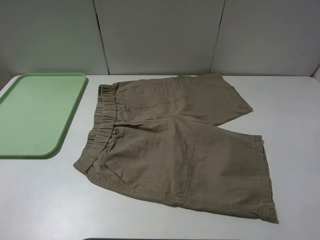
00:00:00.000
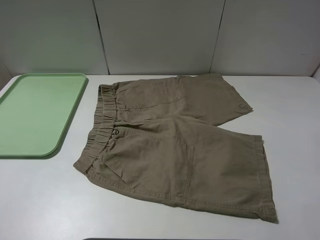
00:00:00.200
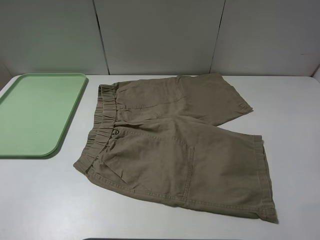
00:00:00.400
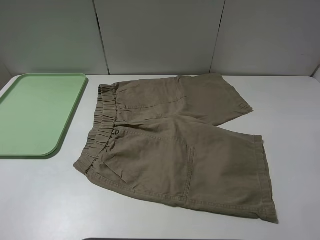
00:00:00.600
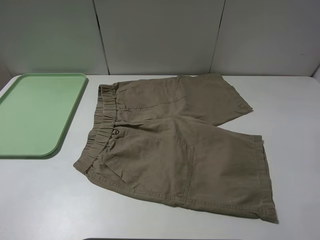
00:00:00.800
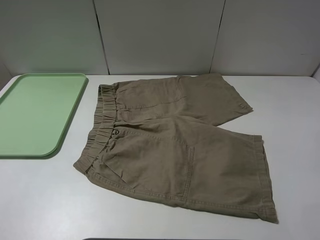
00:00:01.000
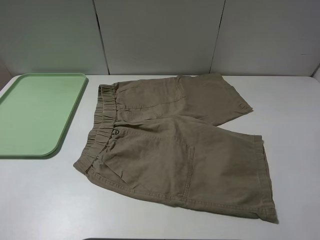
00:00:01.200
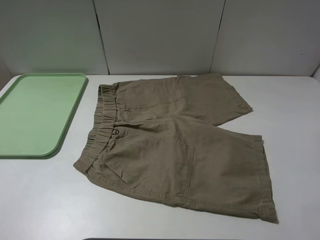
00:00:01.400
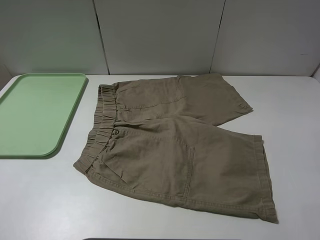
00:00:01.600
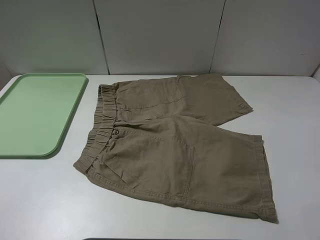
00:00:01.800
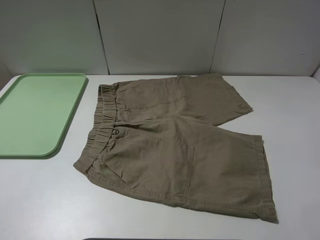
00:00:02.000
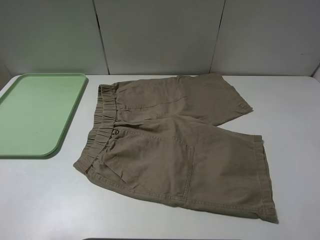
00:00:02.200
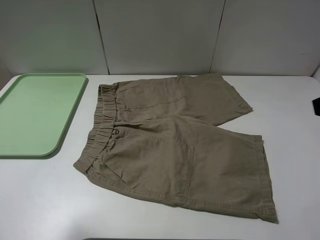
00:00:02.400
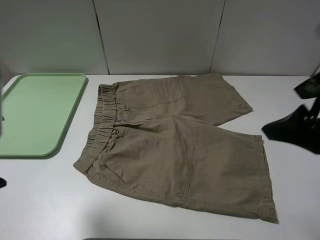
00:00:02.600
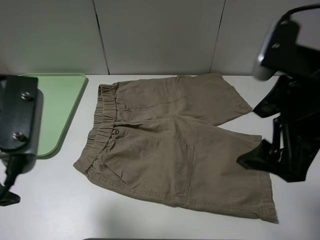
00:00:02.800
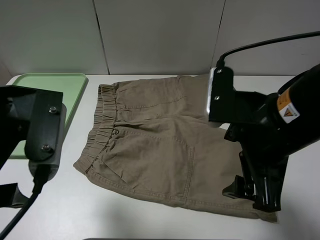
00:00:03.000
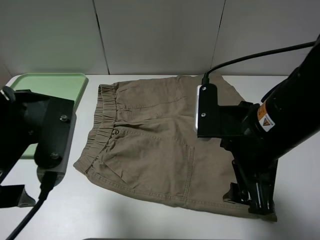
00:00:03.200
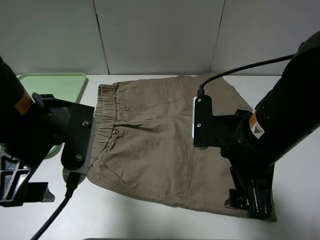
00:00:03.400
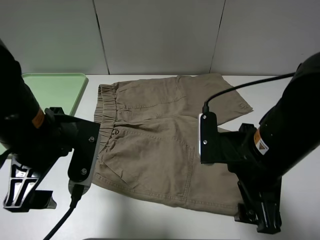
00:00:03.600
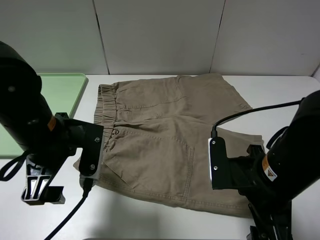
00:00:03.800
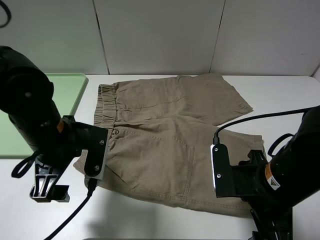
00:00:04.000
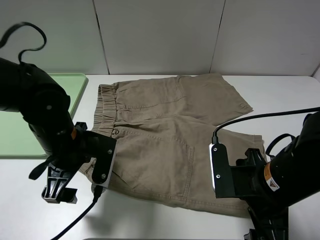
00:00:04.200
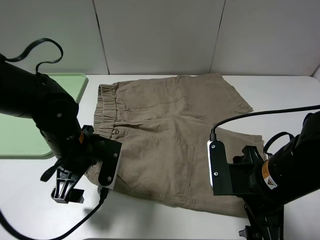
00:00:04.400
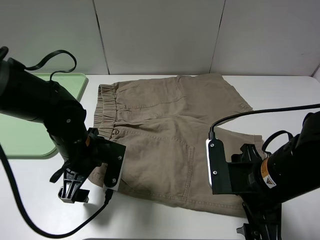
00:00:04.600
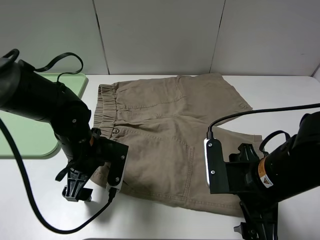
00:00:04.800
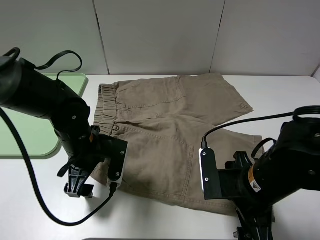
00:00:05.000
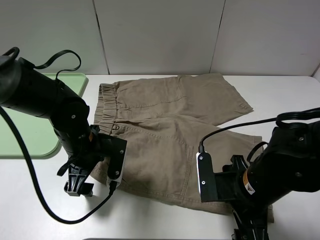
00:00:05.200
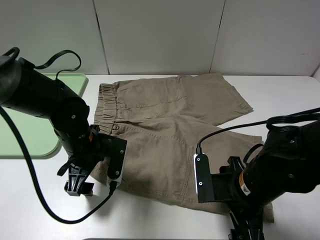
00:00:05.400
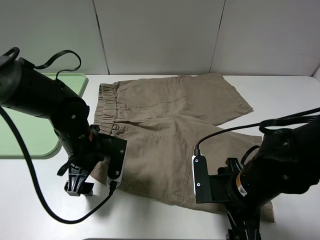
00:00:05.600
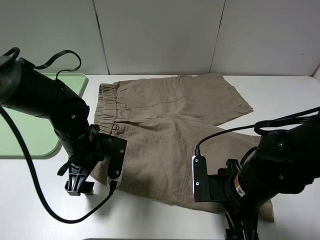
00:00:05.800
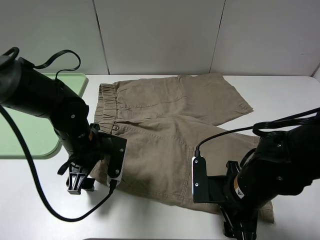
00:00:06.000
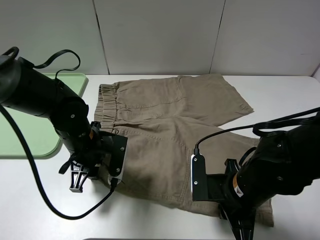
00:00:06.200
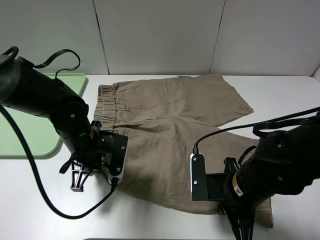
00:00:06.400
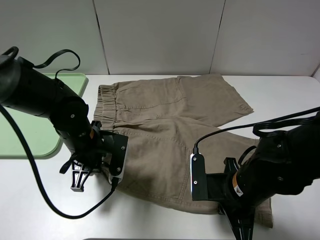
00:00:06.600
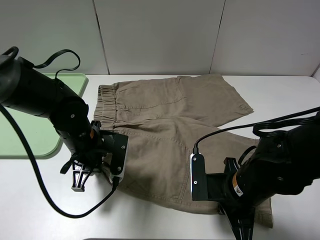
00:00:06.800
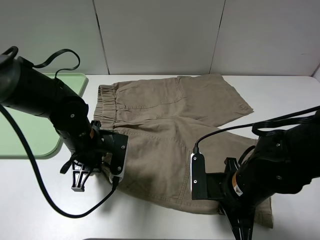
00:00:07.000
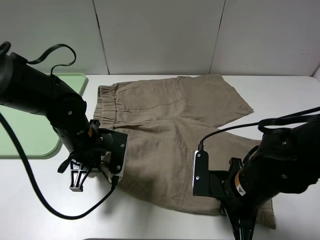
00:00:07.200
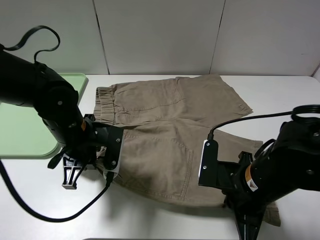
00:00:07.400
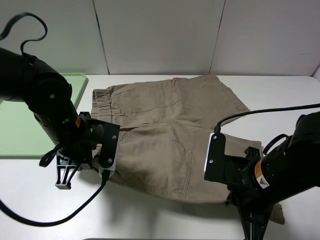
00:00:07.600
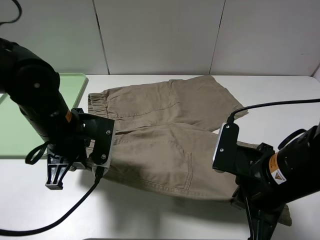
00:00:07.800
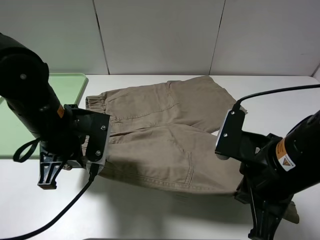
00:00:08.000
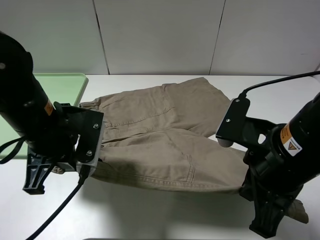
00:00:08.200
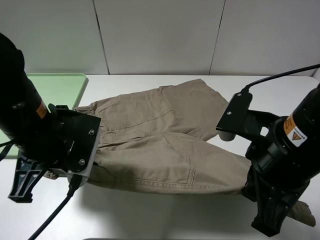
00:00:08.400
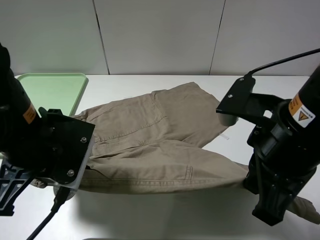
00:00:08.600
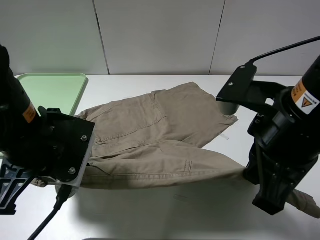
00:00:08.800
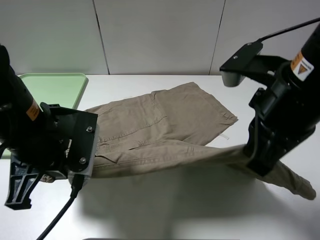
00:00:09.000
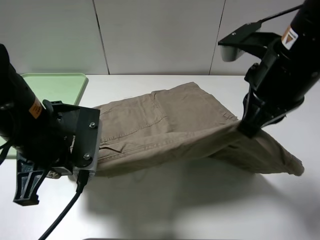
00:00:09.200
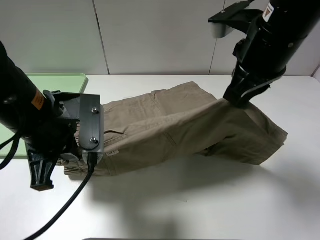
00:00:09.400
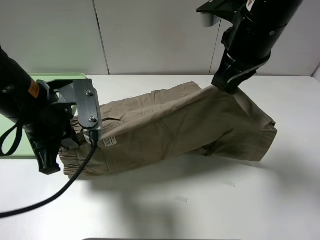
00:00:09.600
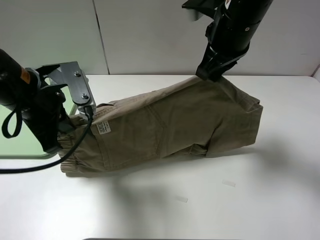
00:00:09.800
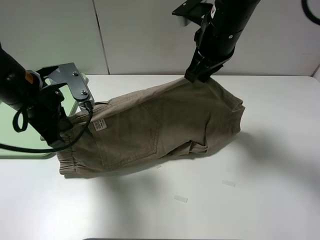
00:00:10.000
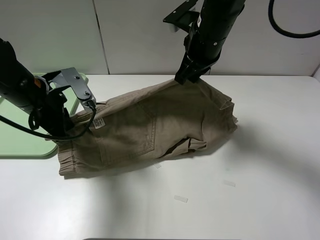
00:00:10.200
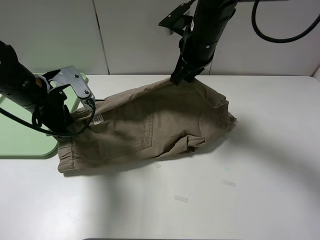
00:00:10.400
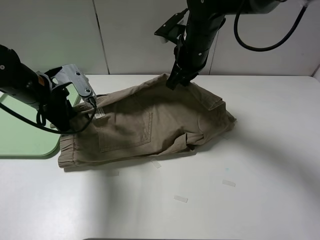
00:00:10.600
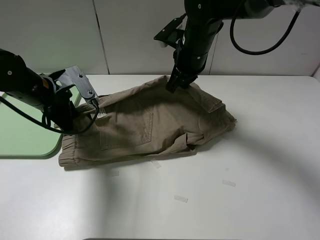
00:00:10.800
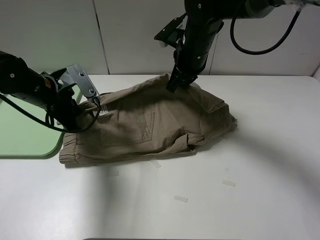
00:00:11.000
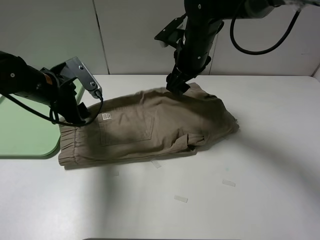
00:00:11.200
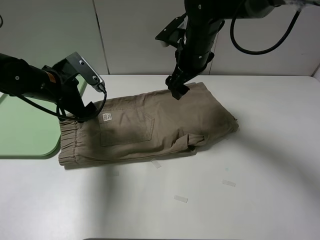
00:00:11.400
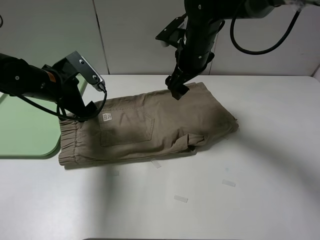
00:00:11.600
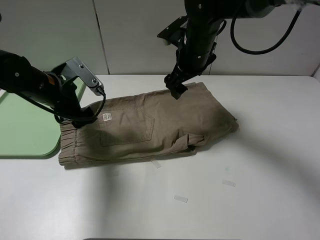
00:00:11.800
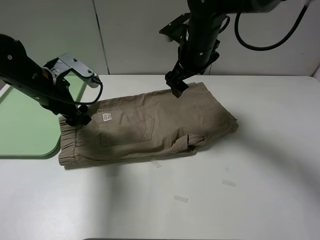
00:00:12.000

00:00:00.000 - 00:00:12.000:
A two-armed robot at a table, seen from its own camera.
Task of the whole recording: fold the khaki jeans in half with two grippers, then fold them in half again, and use the left claw to place the folded fold khaki jeans on the tray.
Step, 00:00:00.000 - 00:00:06.400: Grasp the khaki trousers with the left gripper.
Step, 00:00:06.600 - 00:00:11.200: Fold the khaki trousers upwards with the left gripper.
00:00:00.000 - 00:00:01.600: Neither gripper changes place.
00:00:01.600 - 00:00:03.000: The right gripper moves to the left and forward, roughly 20 cm, while the left gripper shifts about 20 cm forward and to the right.
00:00:03.000 - 00:00:04.400: The left gripper is displaced downward and forward by about 15 cm, while the right gripper shifts about 10 cm downward.
00:00:04.400 - 00:00:06.000: The right gripper travels downward by approximately 5 cm, and closes.
00:00:06.000 - 00:00:07.600: Both grippers travel together upward, roughly 5 cm. The left gripper closes; the right gripper closes its fingers.
00:00:07.600 - 00:00:09.000: The left gripper goes approximately 10 cm upward and backward, while the right gripper travels upward by approximately 15 cm.
00:00:09.000 - 00:00:10.400: The right gripper is displaced forward by about 20 cm; the left gripper travels forward and to the left by about 15 cm.
00:00:10.400 - 00:00:12.000: The right gripper opens up, while the left gripper opens up.

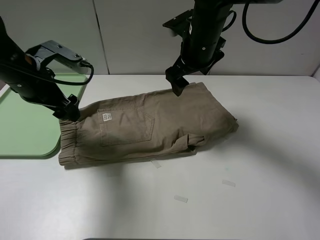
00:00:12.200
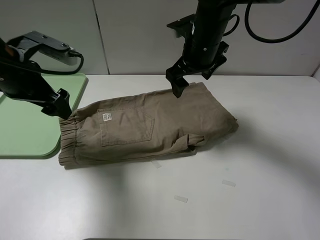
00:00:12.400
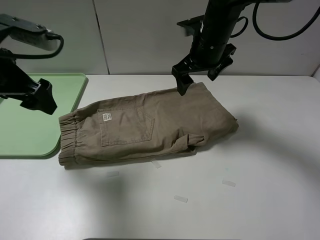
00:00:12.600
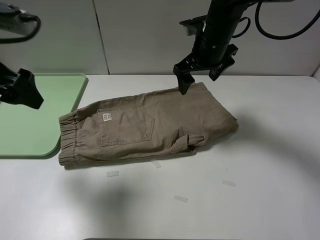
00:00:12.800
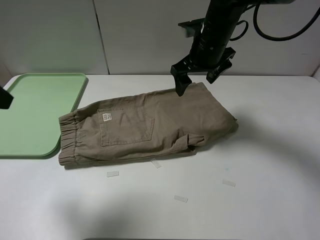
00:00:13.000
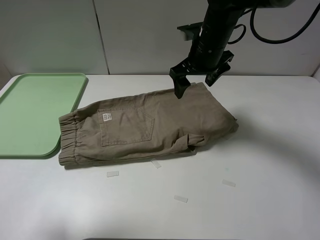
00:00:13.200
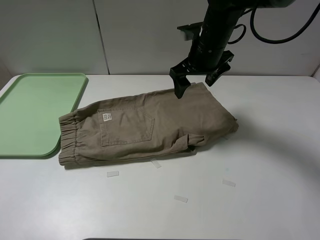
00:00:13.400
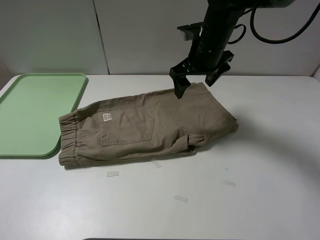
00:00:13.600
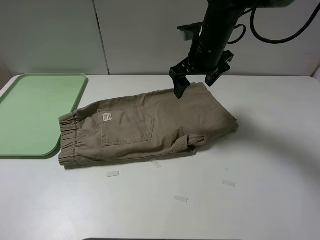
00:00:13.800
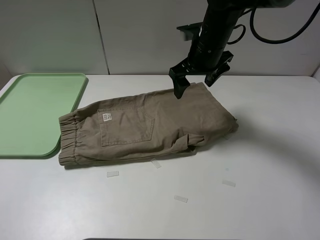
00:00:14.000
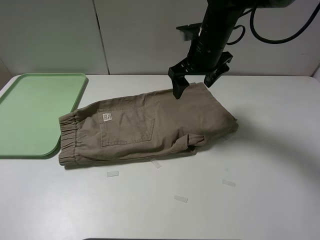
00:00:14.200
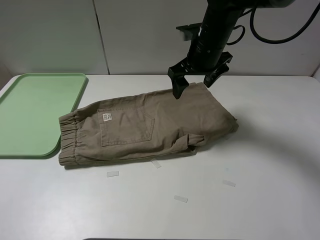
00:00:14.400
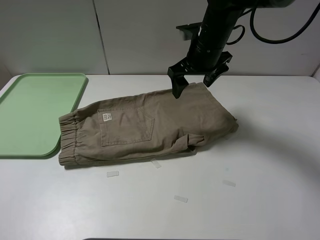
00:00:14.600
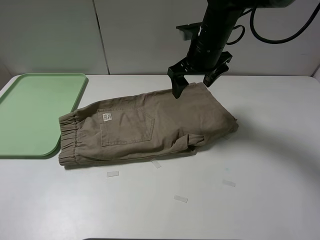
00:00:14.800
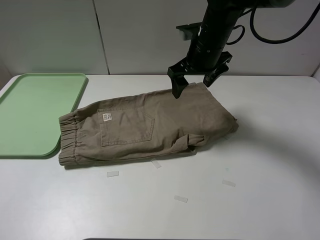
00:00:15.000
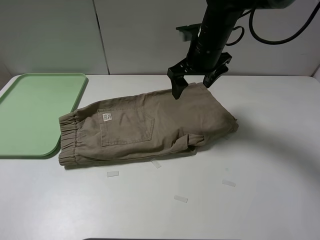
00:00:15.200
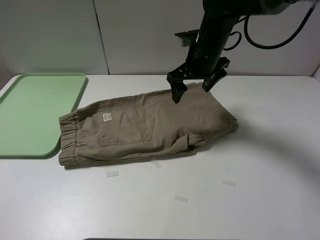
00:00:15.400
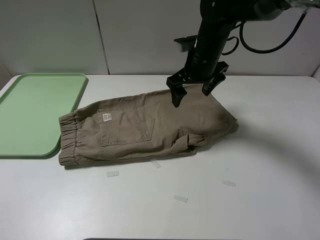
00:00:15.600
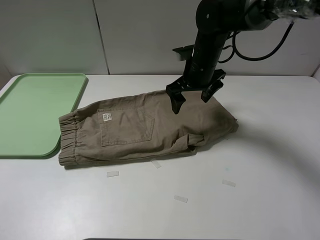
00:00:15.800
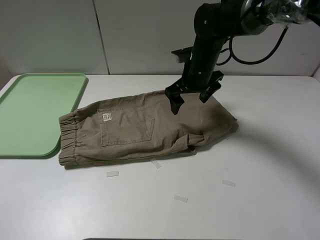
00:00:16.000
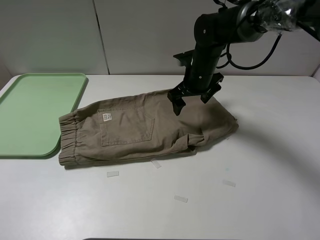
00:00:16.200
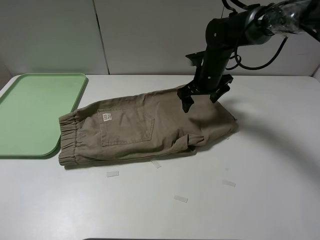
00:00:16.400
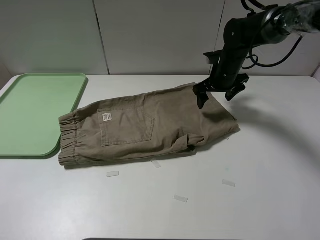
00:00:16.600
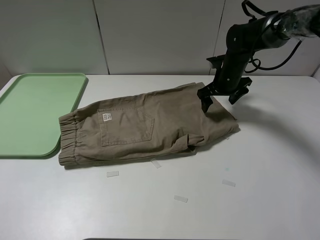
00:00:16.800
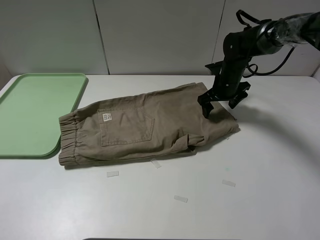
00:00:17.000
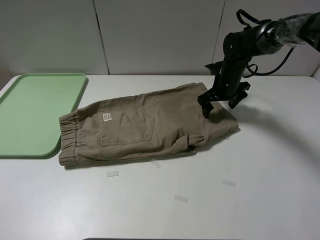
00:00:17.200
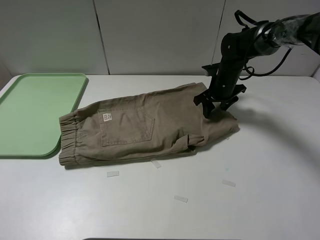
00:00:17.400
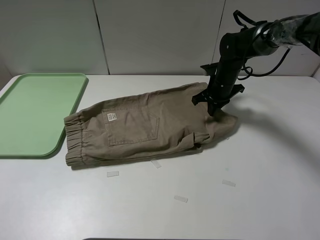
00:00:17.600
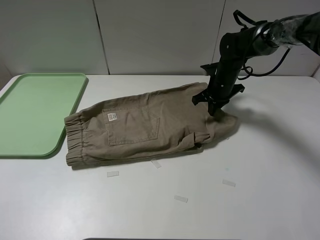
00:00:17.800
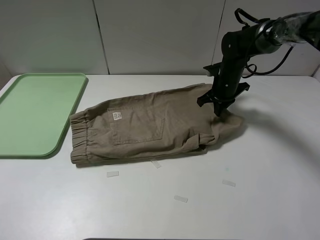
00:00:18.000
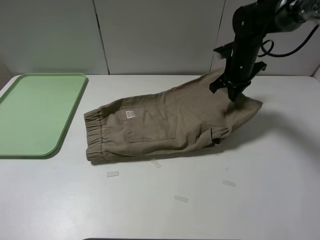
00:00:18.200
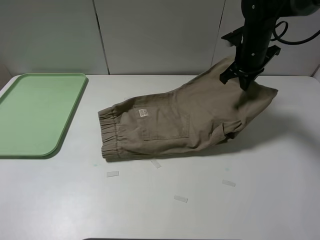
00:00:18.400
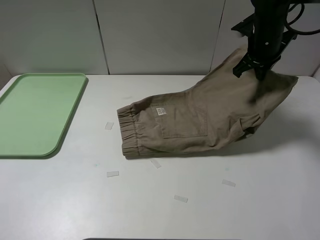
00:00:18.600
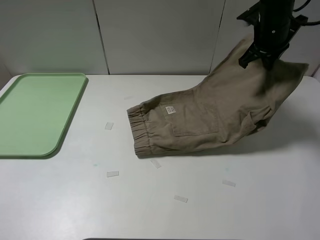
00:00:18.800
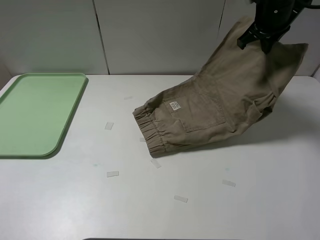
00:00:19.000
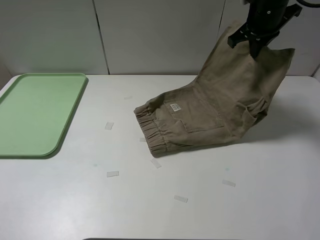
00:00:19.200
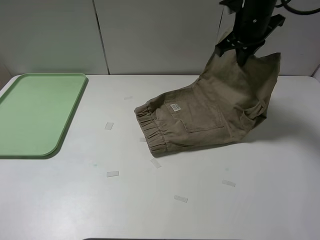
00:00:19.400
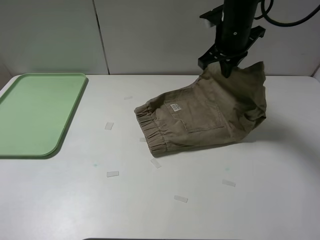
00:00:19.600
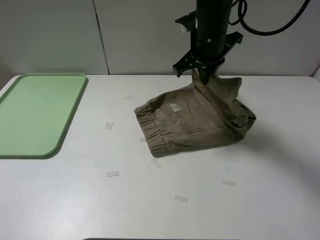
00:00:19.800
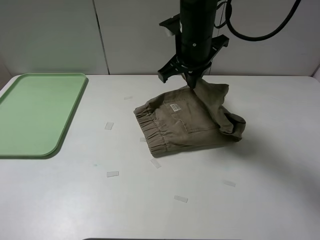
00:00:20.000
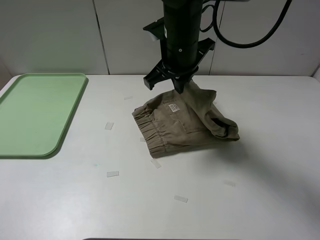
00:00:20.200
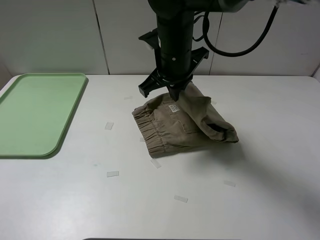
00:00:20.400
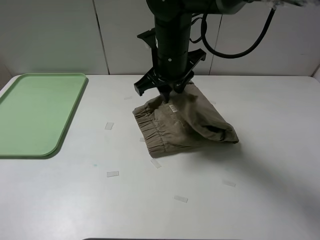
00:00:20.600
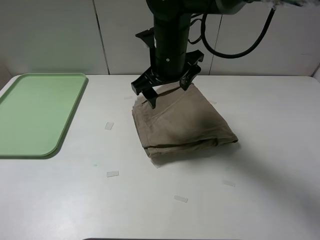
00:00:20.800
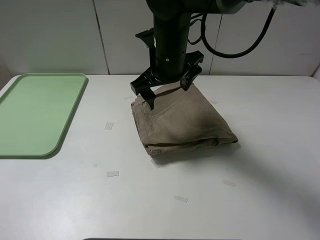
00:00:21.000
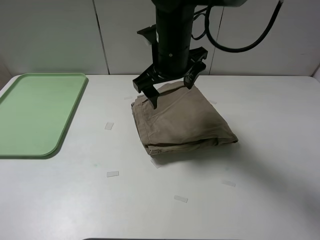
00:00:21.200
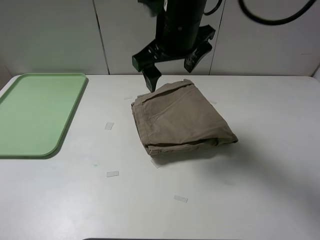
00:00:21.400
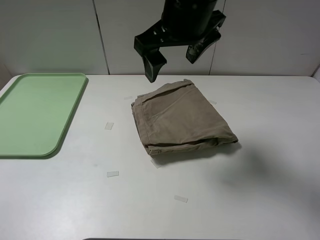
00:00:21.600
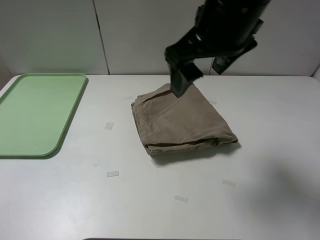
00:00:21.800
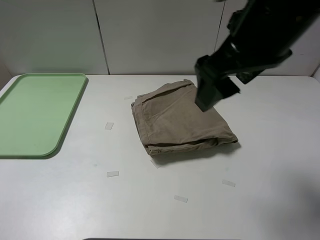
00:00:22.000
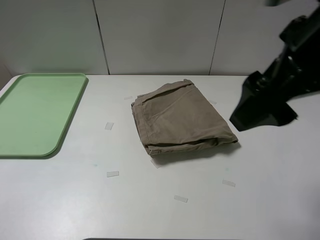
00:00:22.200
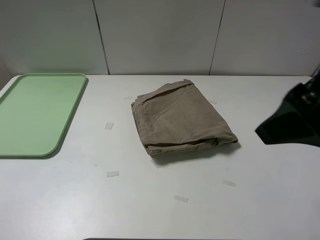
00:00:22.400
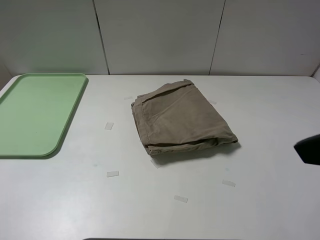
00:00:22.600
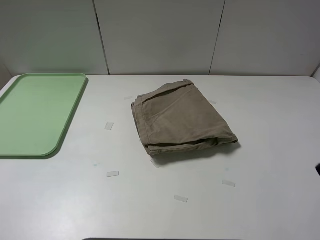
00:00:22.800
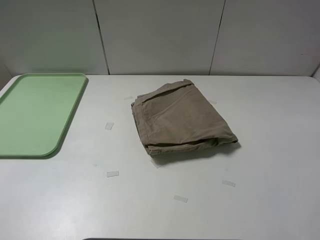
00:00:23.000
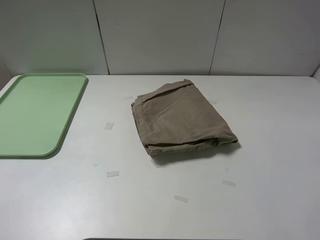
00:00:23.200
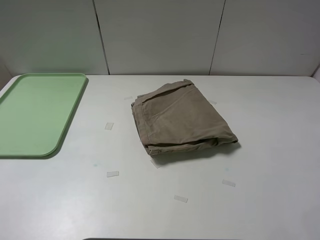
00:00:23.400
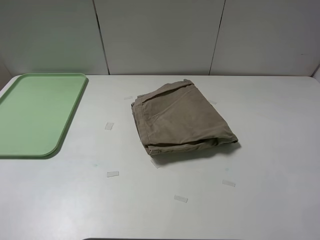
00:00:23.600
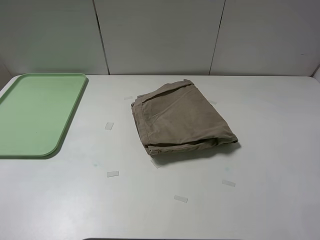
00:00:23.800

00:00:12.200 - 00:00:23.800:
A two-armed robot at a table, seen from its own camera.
Task of the whole recording: fold the khaki jeans in half with two grippers, then fold them in half again, and use the left claw to place the folded fold khaki jeans on the tray.
Step, 00:00:12.200 - 00:00:17.800: Grasp the khaki trousers with the right gripper.
Step, 00:00:18.000 - 00:00:20.800: Fold the khaki trousers from right to left with the right gripper.
00:00:12.200 - 00:00:13.600: The left gripper shifts some 25 cm backward.
00:00:15.000 - 00:00:16.600: The right gripper moves downward, to the right and forward, approximately 15 cm.
00:00:16.600 - 00:00:18.000: The right gripper closes its fingers.
00:00:18.000 - 00:00:19.400: The right gripper shifts roughly 15 cm upward.
00:00:19.400 - 00:00:21.000: The right gripper heads to the left and backward, covering approximately 20 cm, and opens.
00:00:21.000 - 00:00:22.400: The right gripper goes roughly 30 cm backward, to the right and upward.
00:00:22.400 - 00:00:23.800: The right gripper is displaced backward, to the right and downward by some 20 cm.
